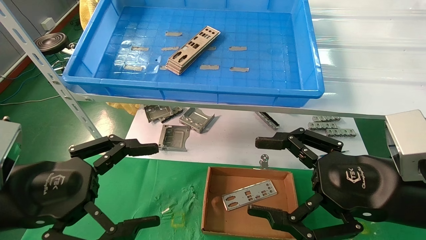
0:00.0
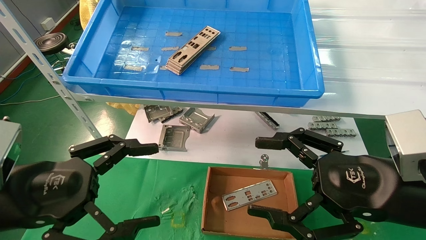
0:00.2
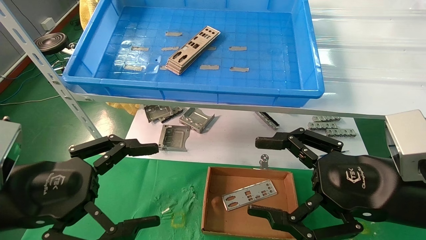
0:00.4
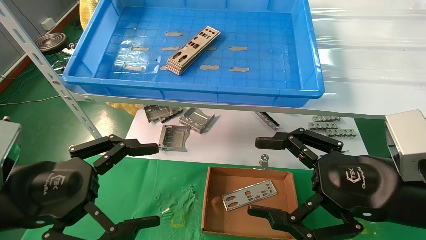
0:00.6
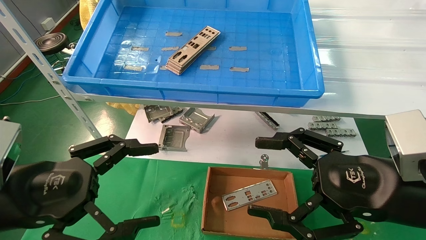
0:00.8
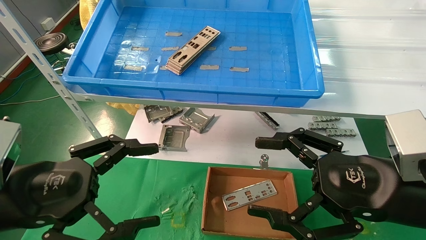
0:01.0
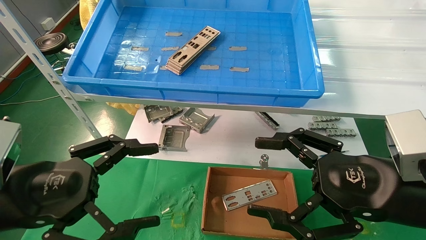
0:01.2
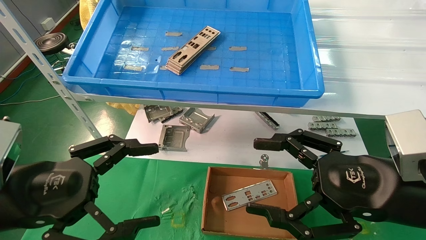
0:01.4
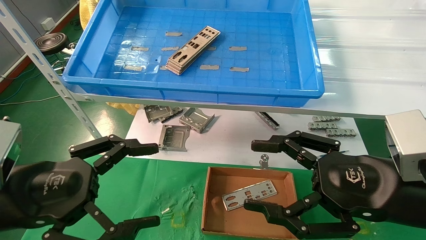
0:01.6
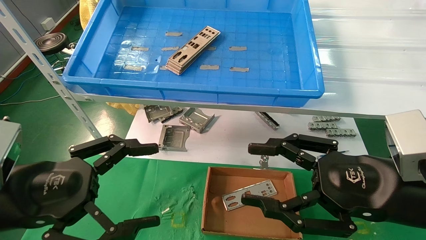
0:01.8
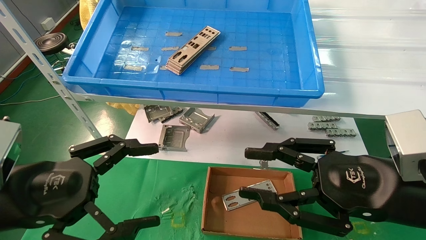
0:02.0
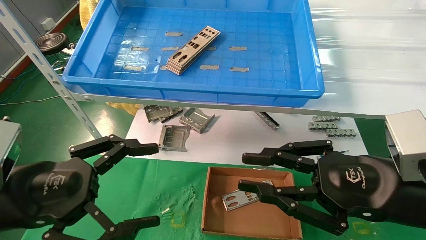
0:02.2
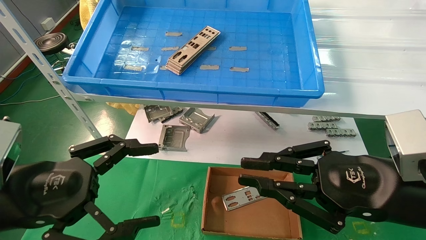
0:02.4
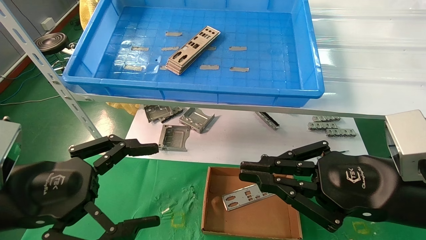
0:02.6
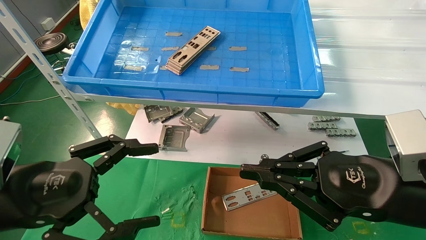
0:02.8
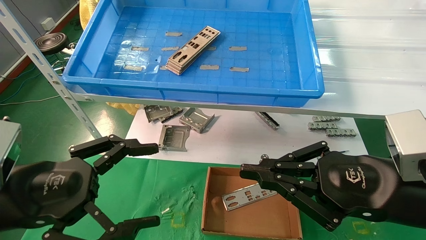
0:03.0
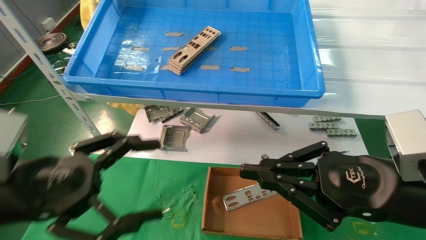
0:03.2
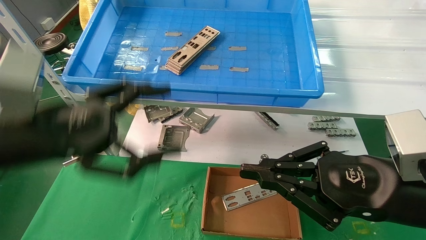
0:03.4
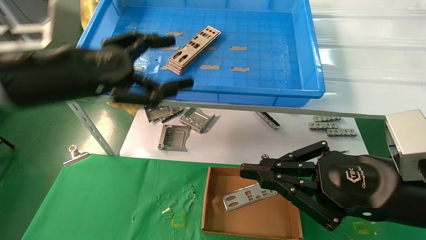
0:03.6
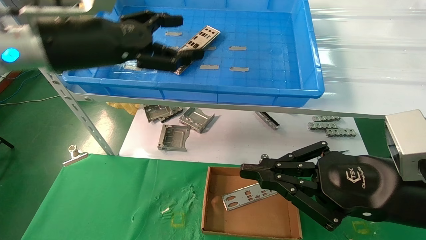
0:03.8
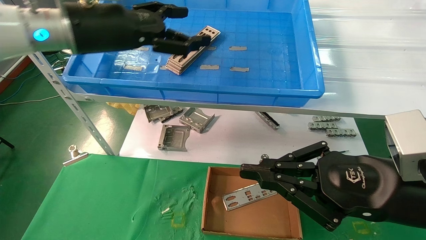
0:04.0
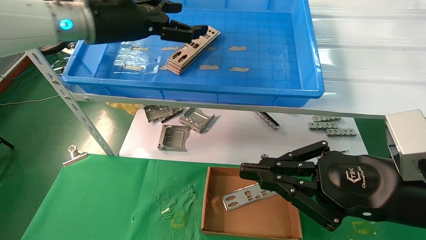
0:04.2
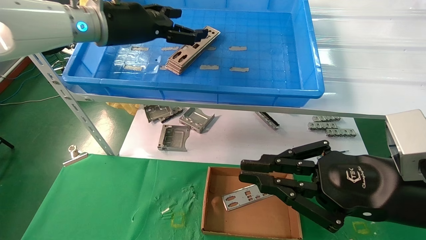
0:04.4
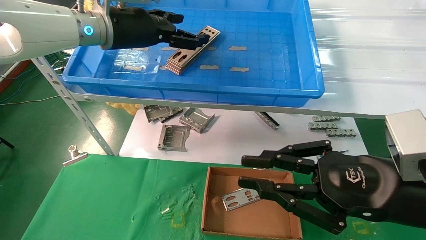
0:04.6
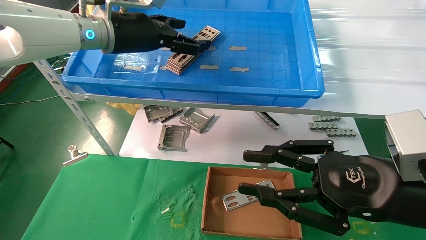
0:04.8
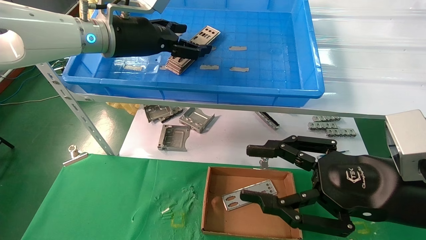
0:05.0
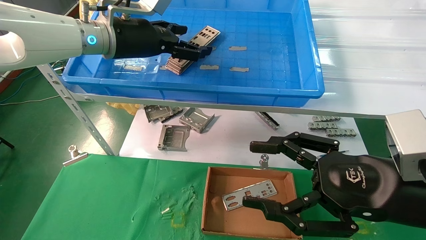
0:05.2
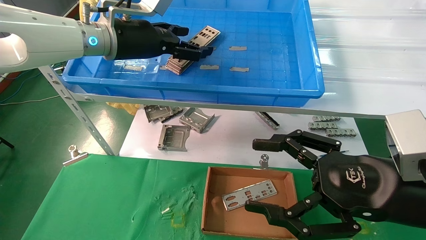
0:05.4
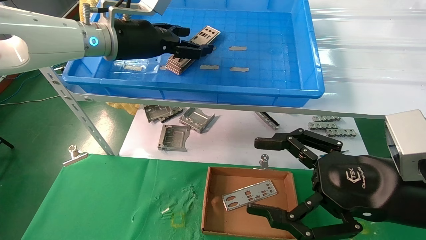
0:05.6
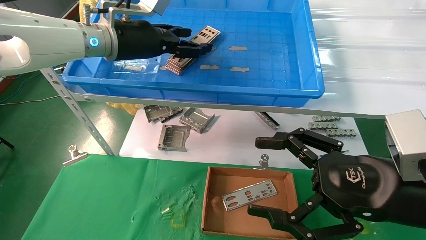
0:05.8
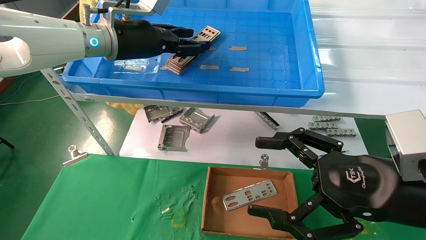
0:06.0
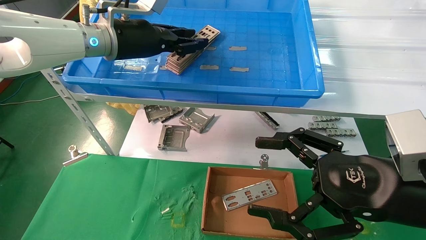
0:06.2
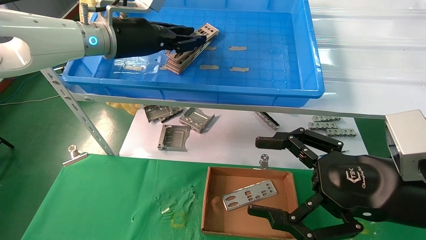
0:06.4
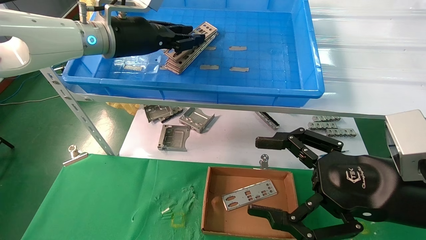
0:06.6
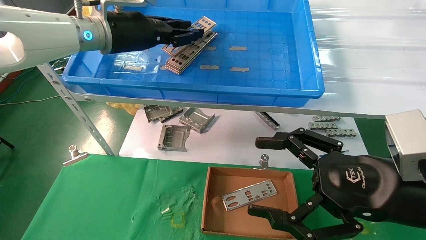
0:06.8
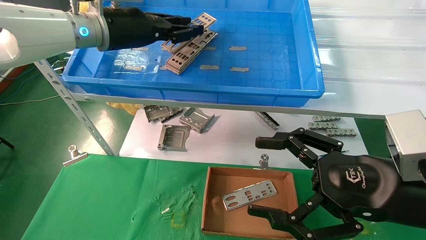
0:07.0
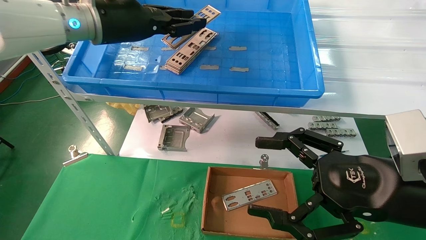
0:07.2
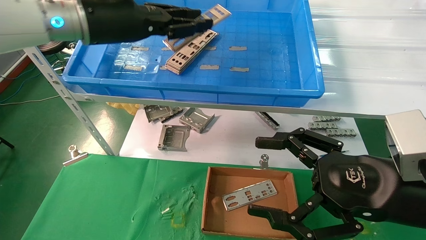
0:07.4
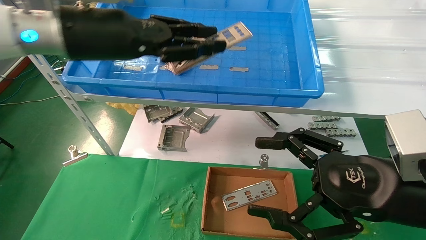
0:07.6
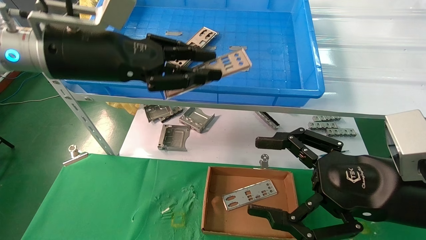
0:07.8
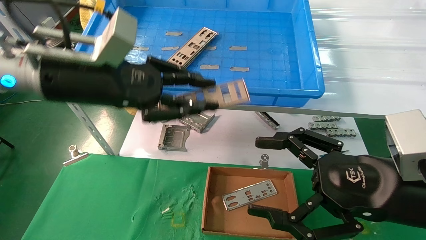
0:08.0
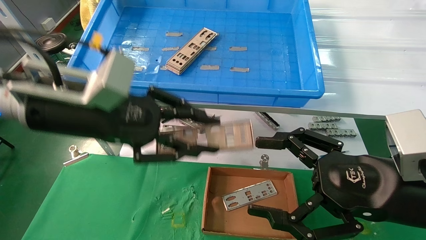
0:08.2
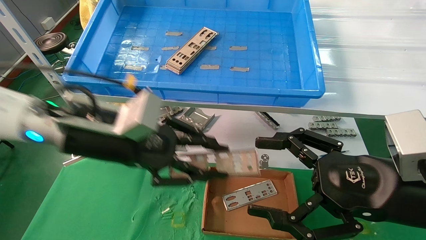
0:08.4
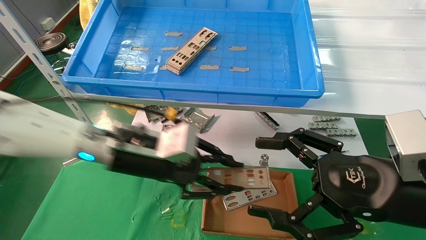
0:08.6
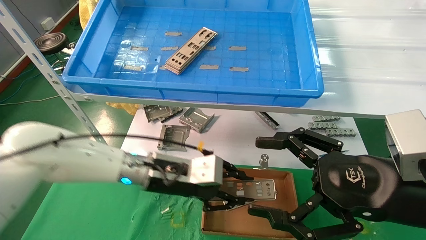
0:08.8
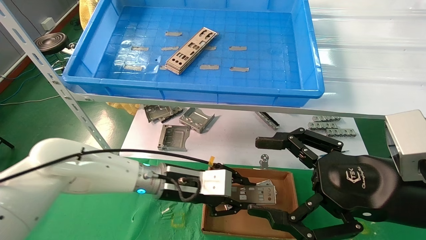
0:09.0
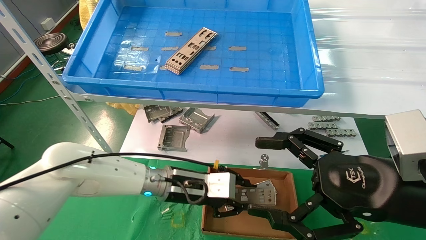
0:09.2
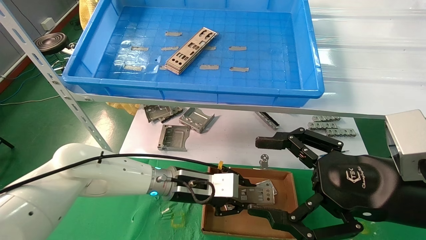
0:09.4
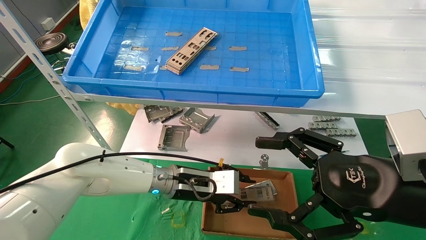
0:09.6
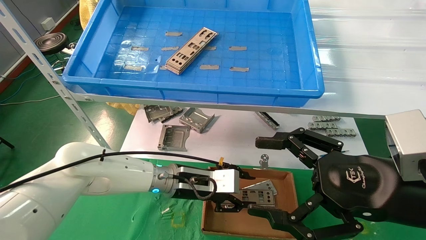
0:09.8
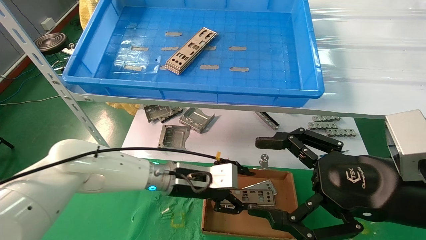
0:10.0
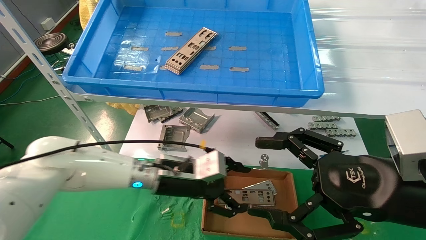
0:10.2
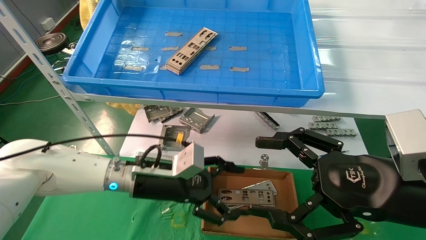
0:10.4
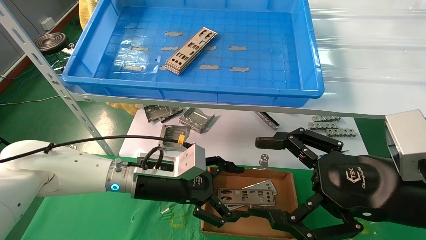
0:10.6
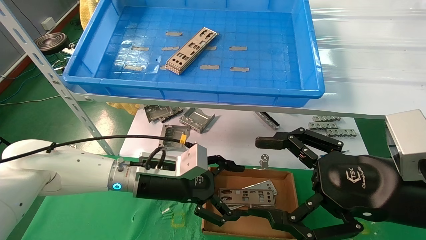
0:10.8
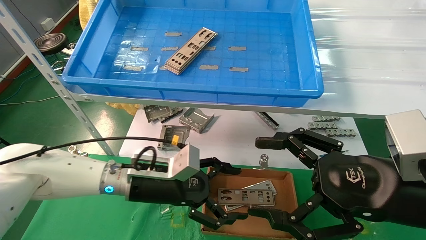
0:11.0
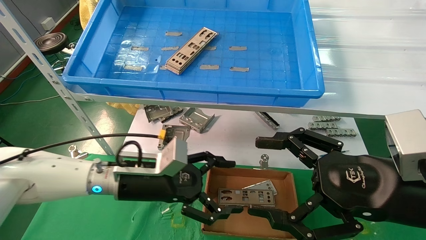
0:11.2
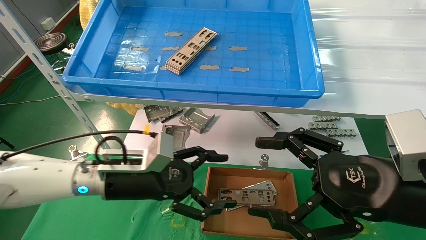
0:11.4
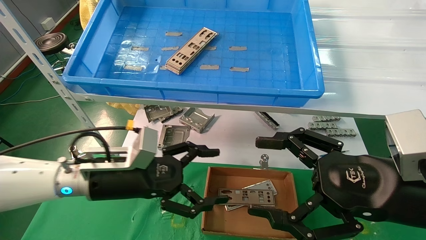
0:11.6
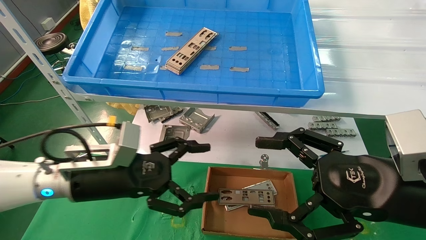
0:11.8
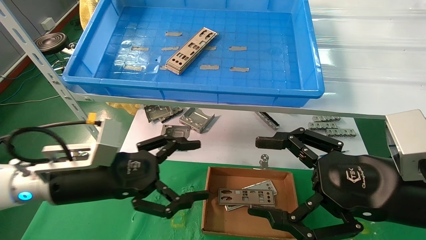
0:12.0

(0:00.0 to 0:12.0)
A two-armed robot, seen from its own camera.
Task of the whole recording: pick up the parts on the tray and put them in the cardboard box.
Step, 0:04.6 - 0:07.4: Pick up the IO bracket from the container box.
Step, 0:07.6 - 0:10.8: Place the IO bracket into the ingredient slot.
0:00.0 - 0:01.6: Both grippers stay put.
0:01.6 - 0:03.0: The right gripper closes.
0:03.0 - 0:04.4: The left gripper travels forward, upward and to the right by about 30 cm.
0:04.4 - 0:06.0: The right gripper opens. Meanwhile the left gripper closes.
0:06.0 - 0:07.6: The left gripper is displaced backward by about 10 cm, and closes its fingers.
0:07.6 - 0:09.0: The left gripper goes some 25 cm downward.
0:09.0 - 0:10.4: The left gripper opens up.
0:10.4 - 0:12.0: The left gripper goes about 15 cm to the left and backward.

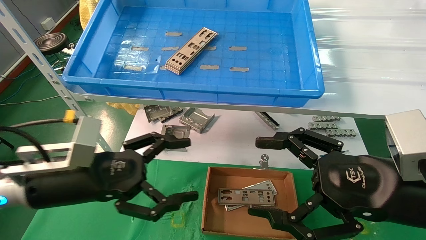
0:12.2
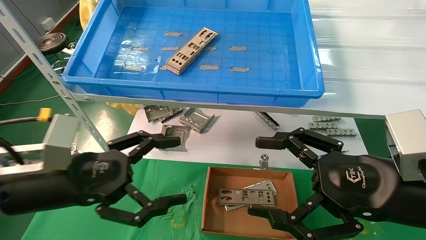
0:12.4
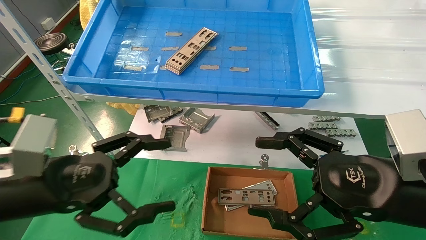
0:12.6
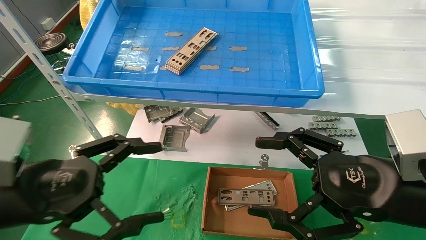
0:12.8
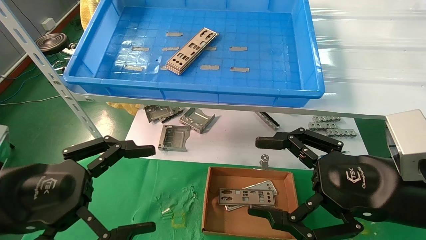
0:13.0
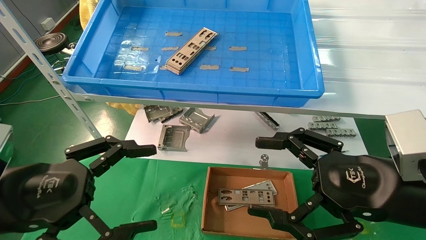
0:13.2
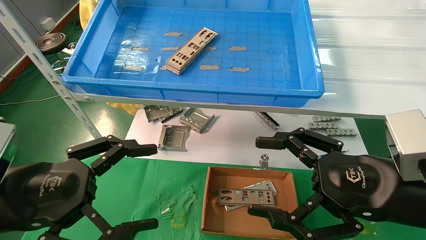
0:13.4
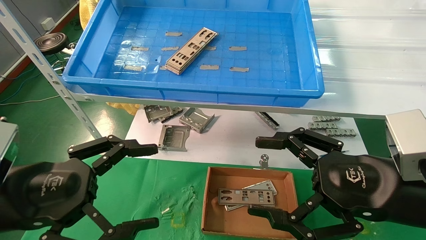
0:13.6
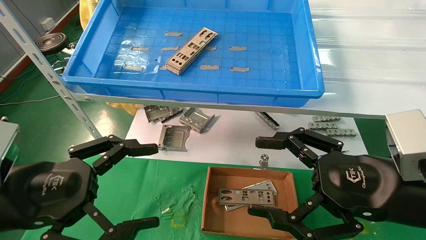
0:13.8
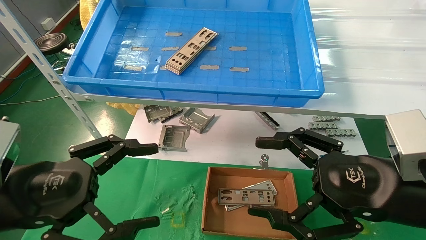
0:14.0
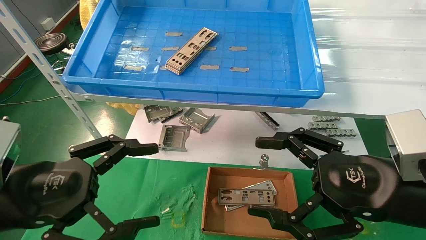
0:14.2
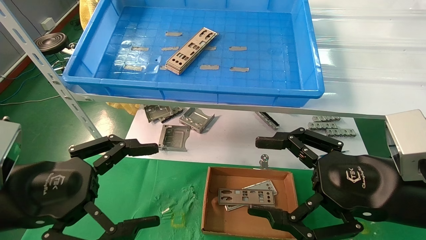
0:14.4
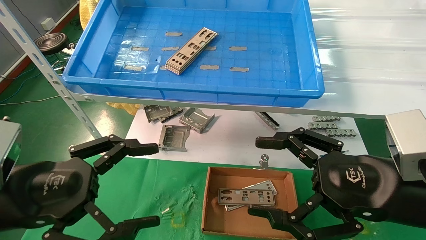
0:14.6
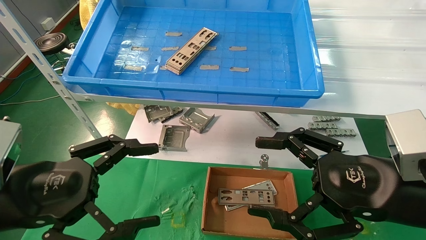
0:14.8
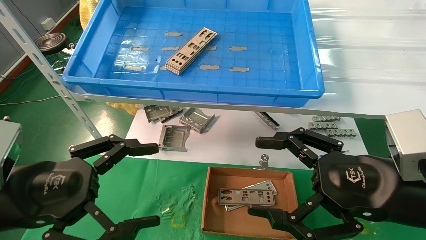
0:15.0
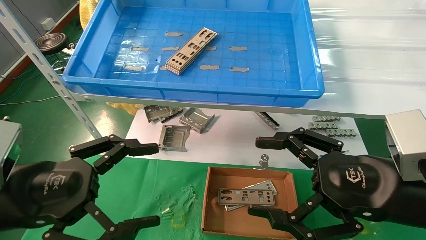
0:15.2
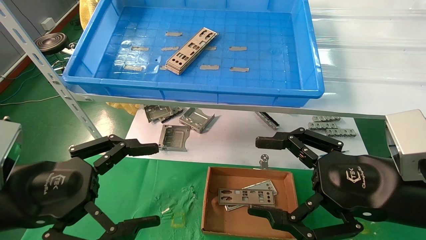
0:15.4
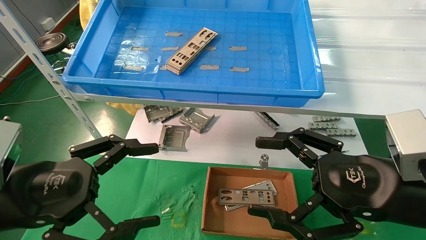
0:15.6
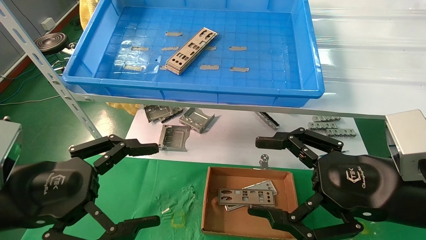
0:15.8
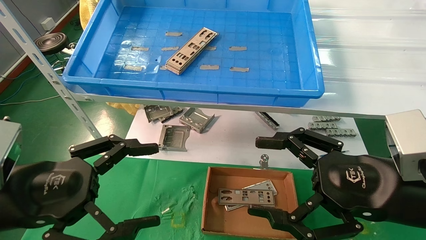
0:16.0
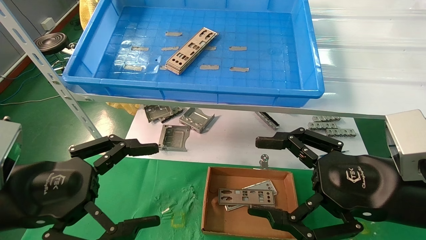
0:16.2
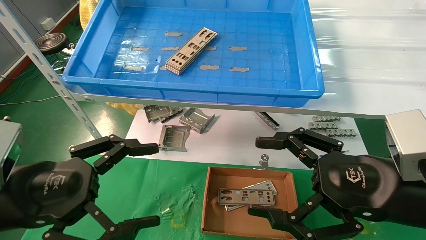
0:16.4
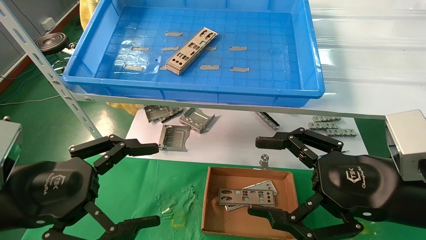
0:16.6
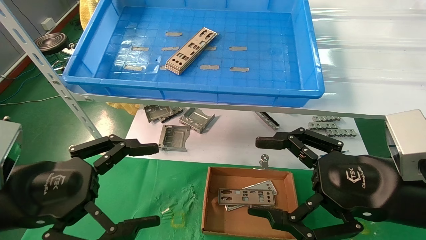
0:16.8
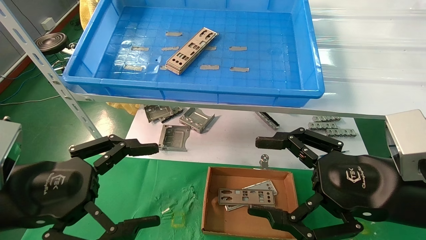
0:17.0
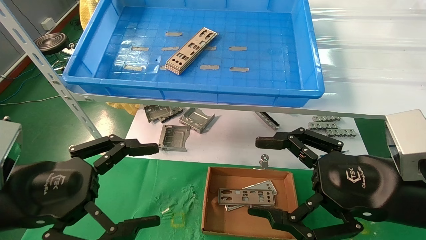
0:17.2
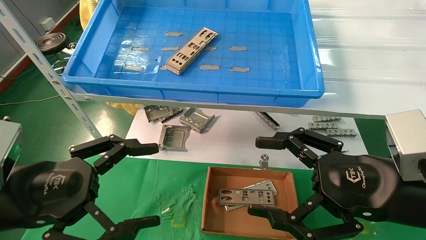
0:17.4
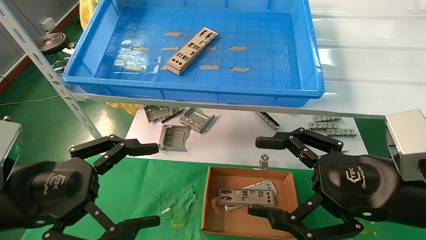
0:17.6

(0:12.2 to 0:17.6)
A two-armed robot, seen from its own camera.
Task of the whole recording: pick up the parts on the tray and put them in the cardboard box.
0:12.2 - 0:13.6: The left gripper moves backward, roughly 10 cm.
0:13.6 - 0:17.6: The two grippers keep their place.
